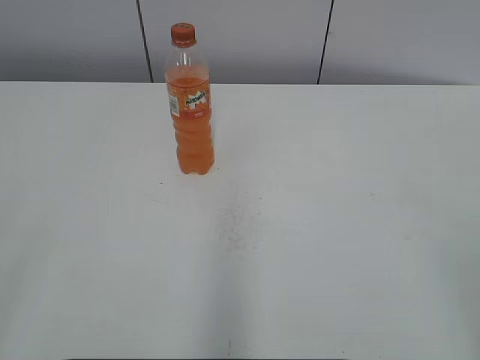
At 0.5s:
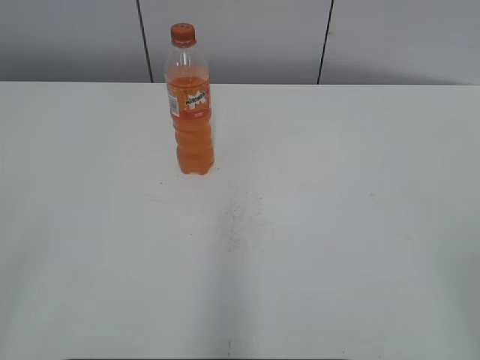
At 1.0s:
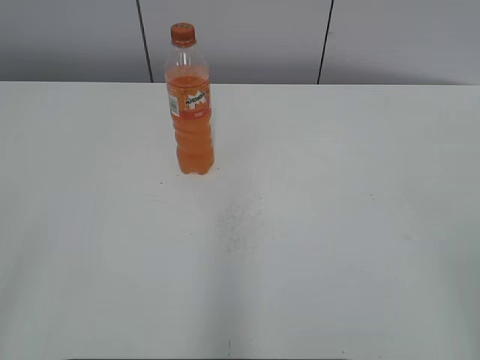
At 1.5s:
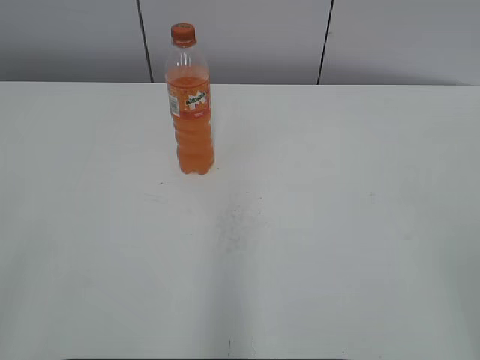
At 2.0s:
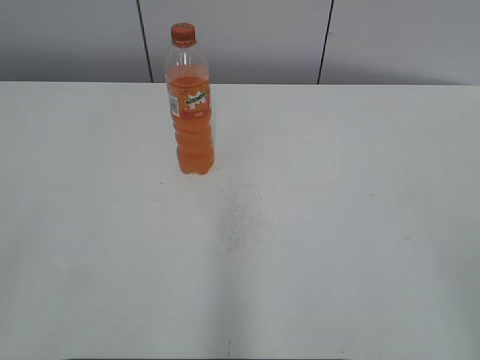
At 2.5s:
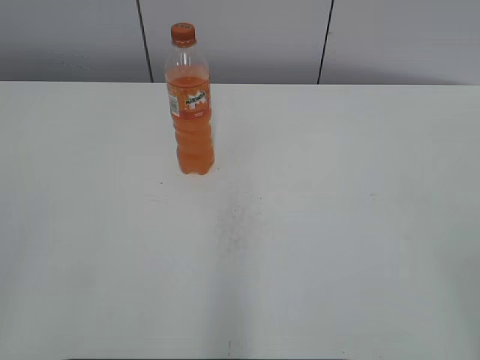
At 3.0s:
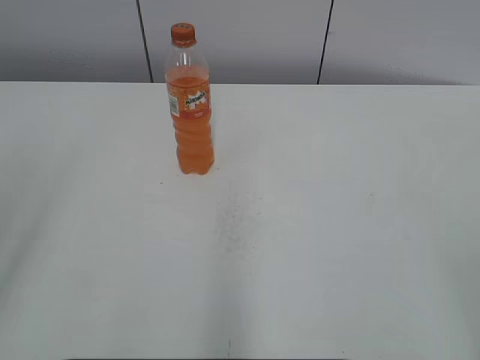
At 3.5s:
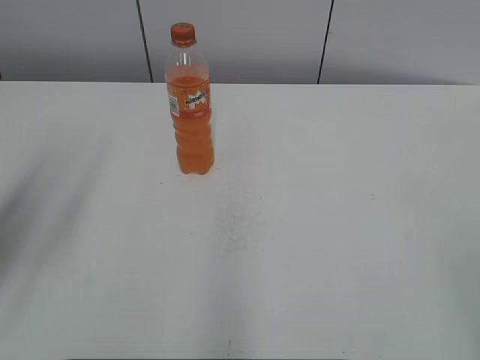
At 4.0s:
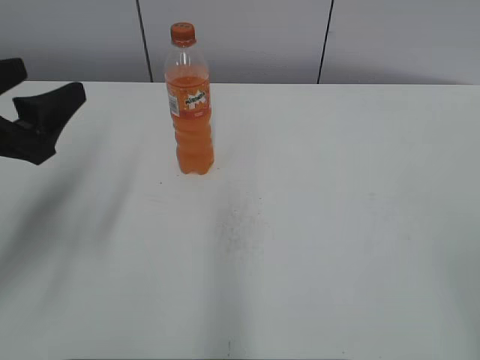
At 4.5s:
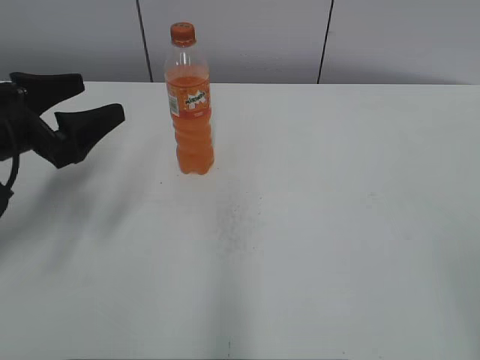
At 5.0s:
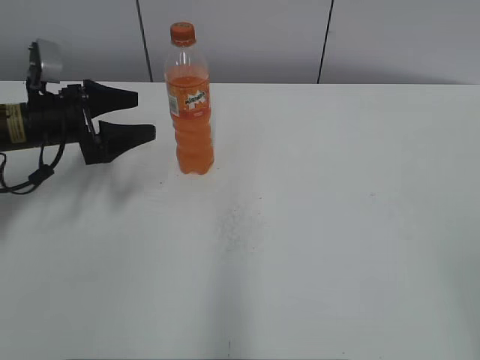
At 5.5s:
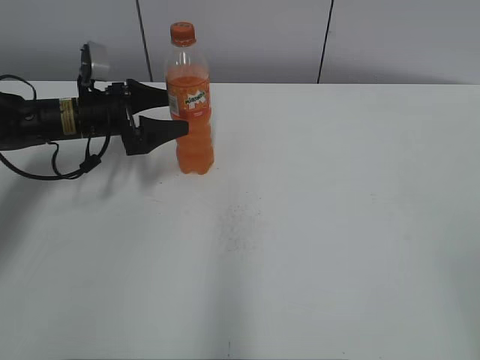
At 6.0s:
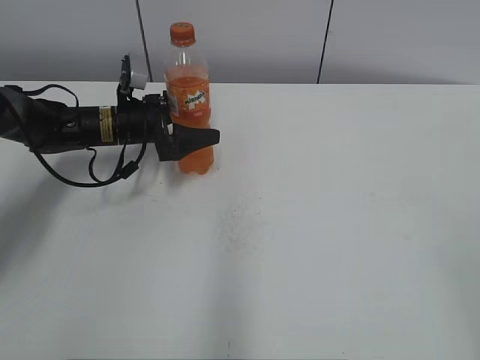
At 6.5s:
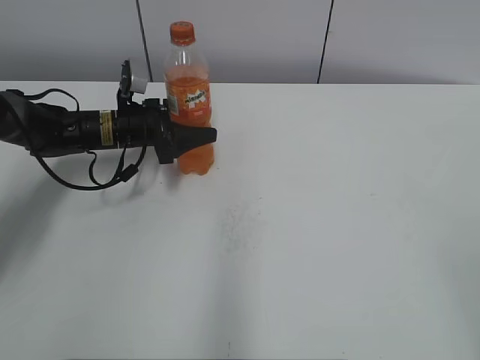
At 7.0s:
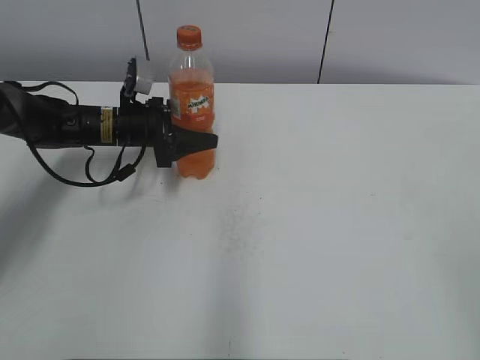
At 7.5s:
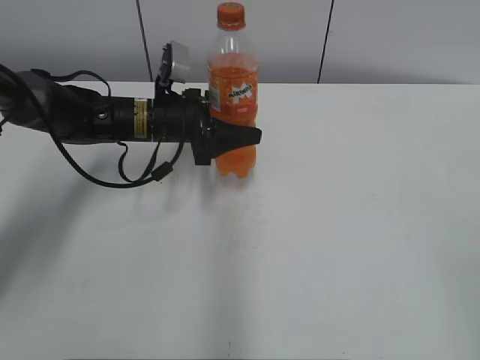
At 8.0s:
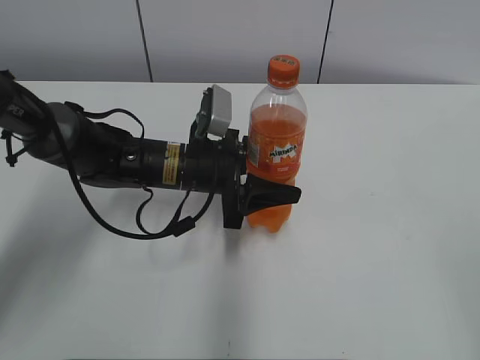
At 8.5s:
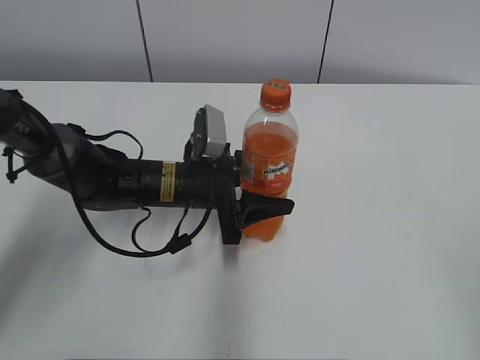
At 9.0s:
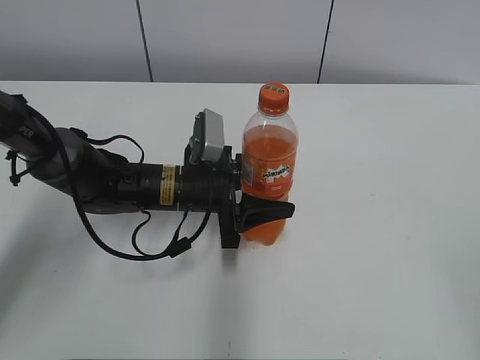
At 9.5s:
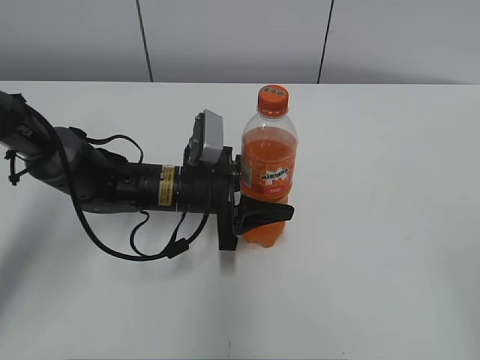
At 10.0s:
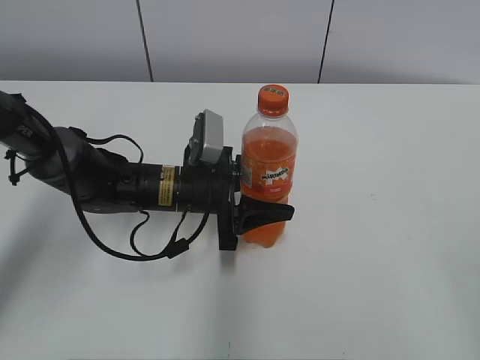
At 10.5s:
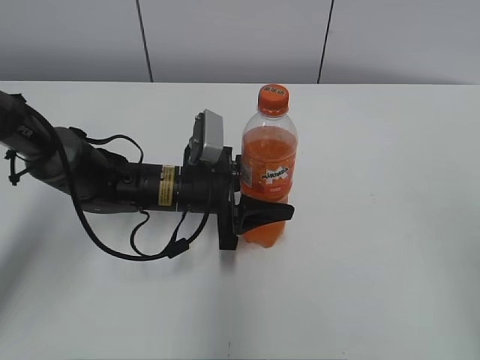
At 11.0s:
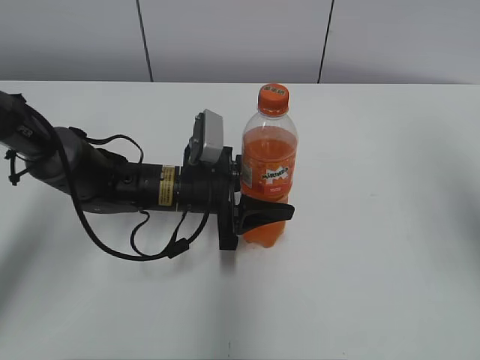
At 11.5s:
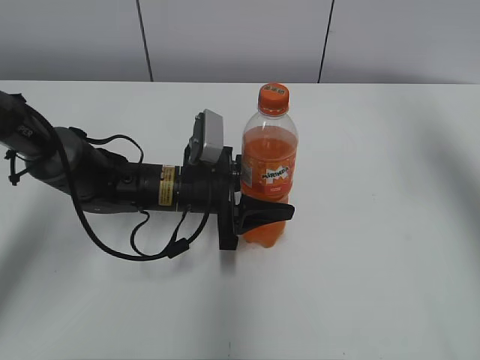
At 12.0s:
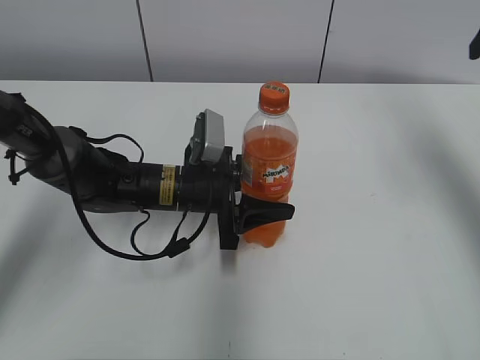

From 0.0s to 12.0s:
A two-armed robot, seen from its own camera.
Step, from 0.0s to 6.0s: Grab the Mirinda with the left hand.
Step, from 7.0s to 9.0s: Move the Mirinda from left to right.
From 2.0s to 4.0s: The left gripper moves forward, roughly 25 cm.
From 4.0s to 6.0s: The left gripper moves forward and downward, some 25 cm.
From 6.0s to 8.0s: The left gripper heads to the right and backward, covering approximately 15 cm, and closes its fingers.
From 8.0s to 10.0s: The grippers stay close to where they were, moving slightly.
From 10.0s to 12.0s: The right gripper travels forward by some 35 cm.

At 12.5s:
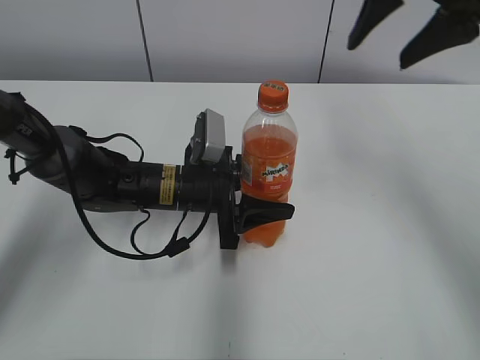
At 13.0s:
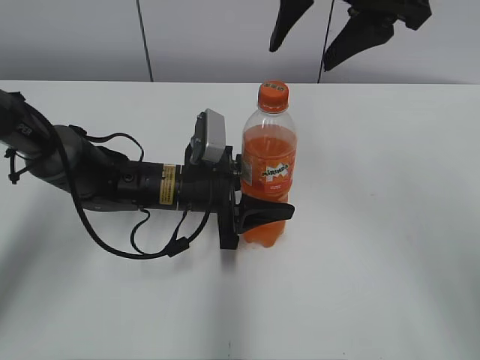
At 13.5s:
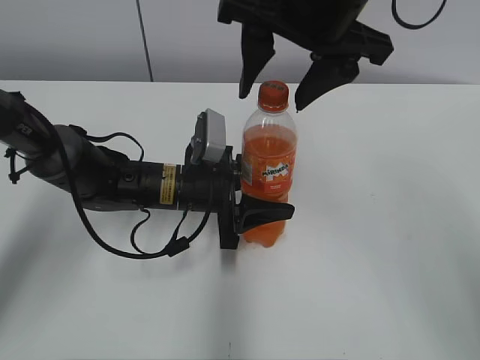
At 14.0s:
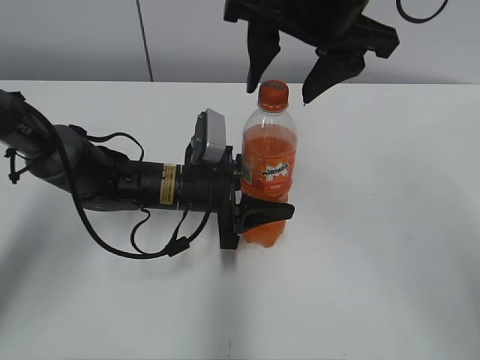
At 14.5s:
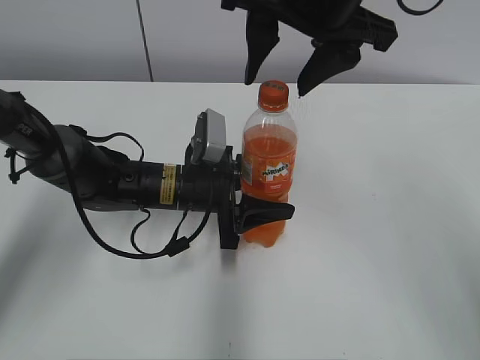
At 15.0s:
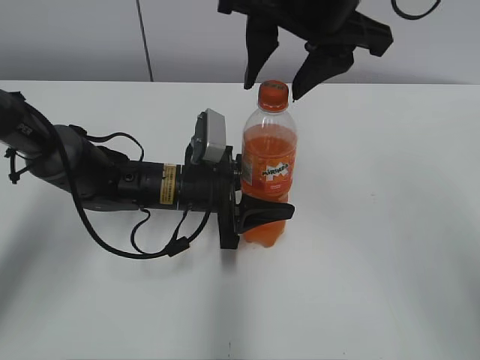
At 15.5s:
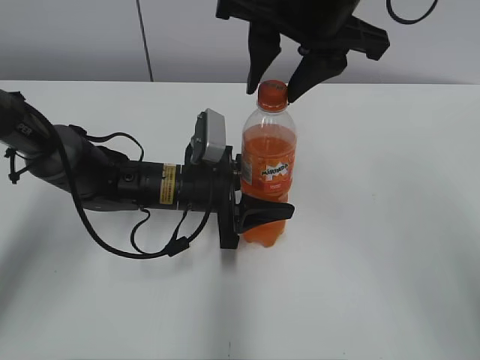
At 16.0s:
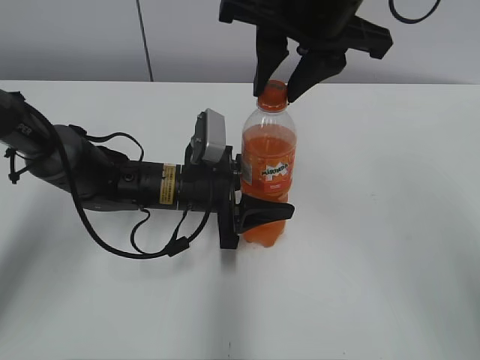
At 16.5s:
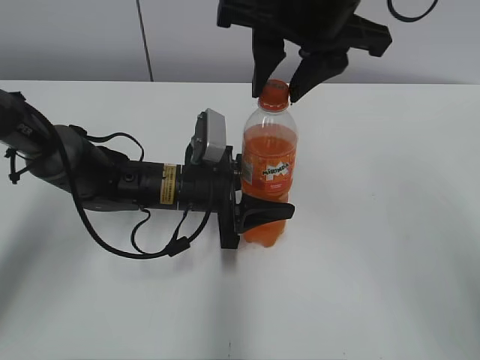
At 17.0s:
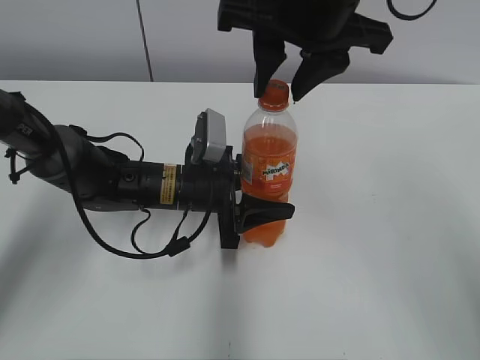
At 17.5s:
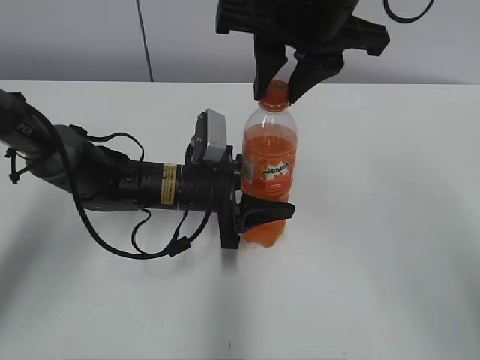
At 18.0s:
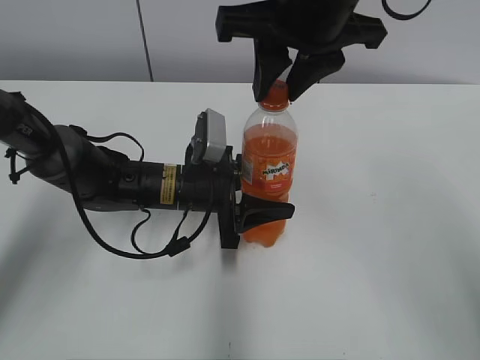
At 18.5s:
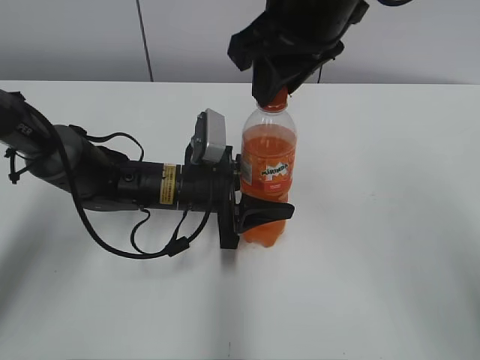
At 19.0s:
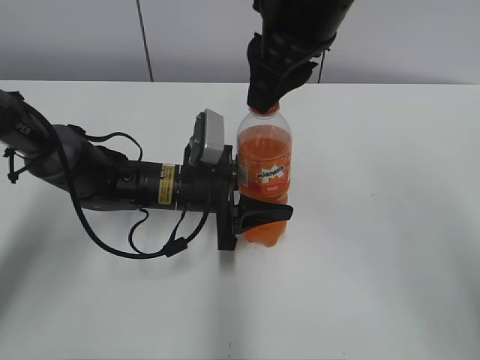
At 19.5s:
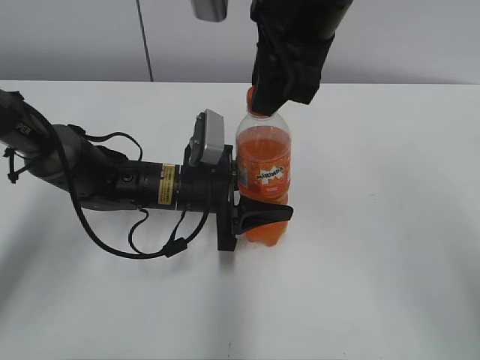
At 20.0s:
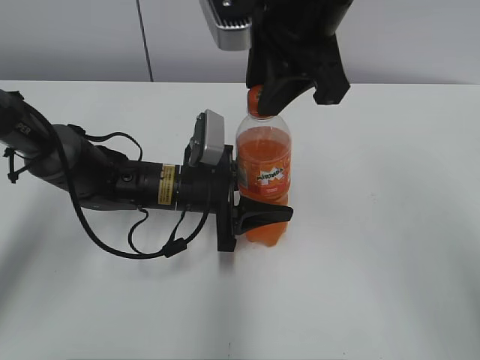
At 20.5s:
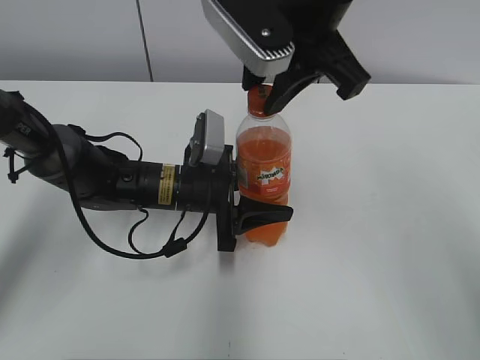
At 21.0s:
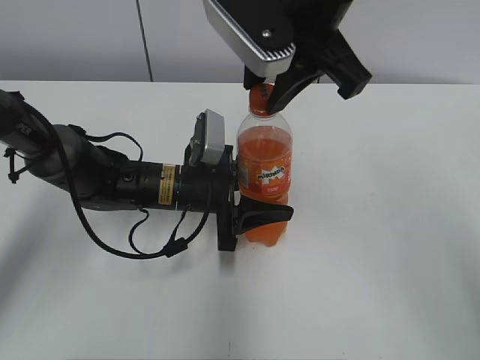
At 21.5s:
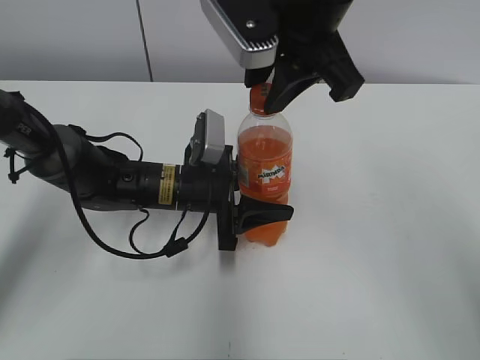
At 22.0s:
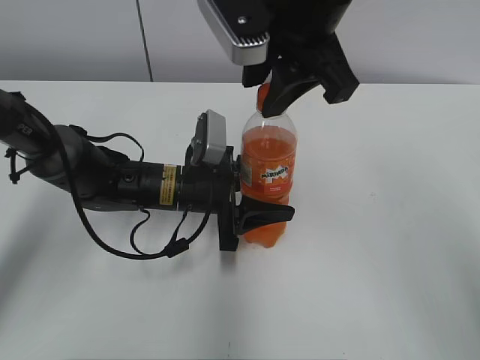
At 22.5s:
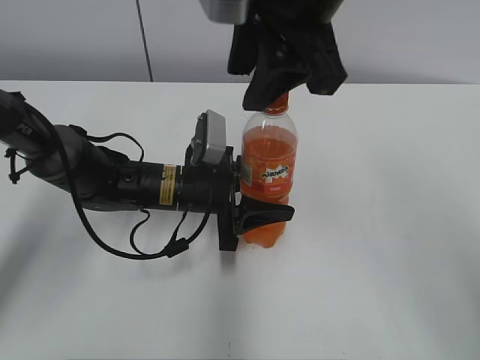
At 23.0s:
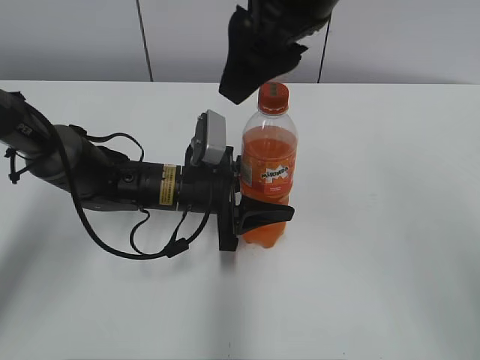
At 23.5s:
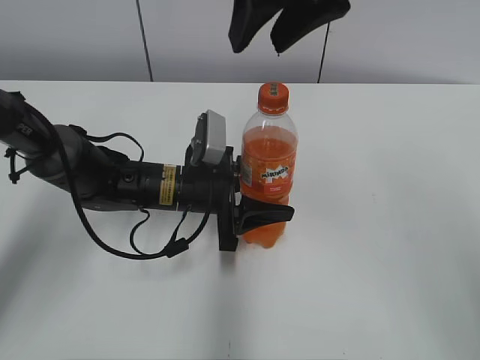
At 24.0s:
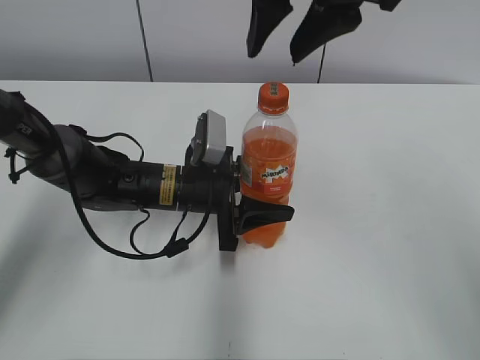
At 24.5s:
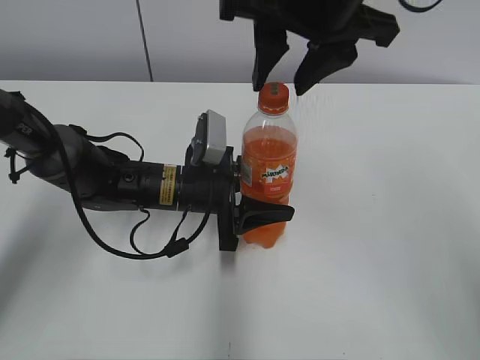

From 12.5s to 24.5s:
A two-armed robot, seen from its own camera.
From 12.5s to 14.5s: The right gripper is displaced to the left by some 10 cm.
From 14.5s to 16.5s: The right gripper closes its fingers.
From 20.5s to 22.5s: The right gripper opens.

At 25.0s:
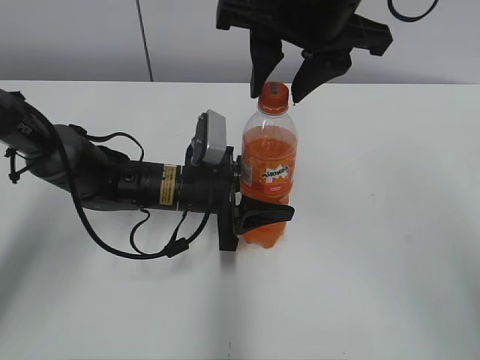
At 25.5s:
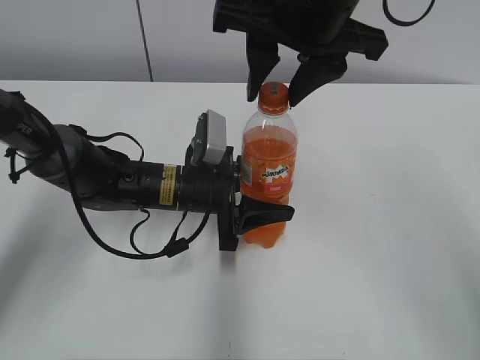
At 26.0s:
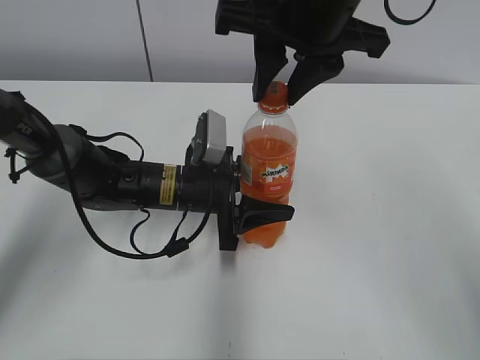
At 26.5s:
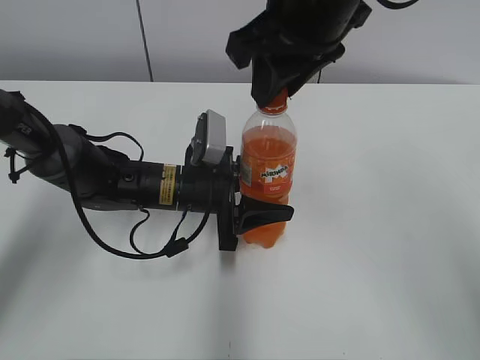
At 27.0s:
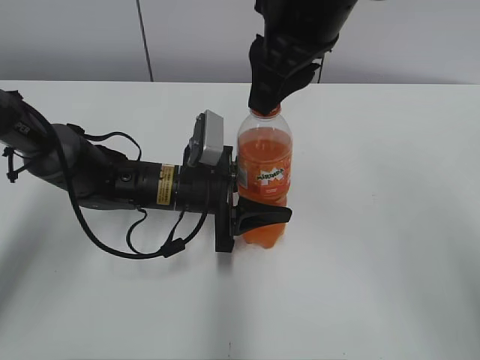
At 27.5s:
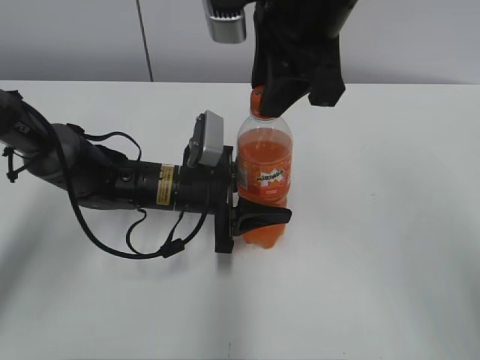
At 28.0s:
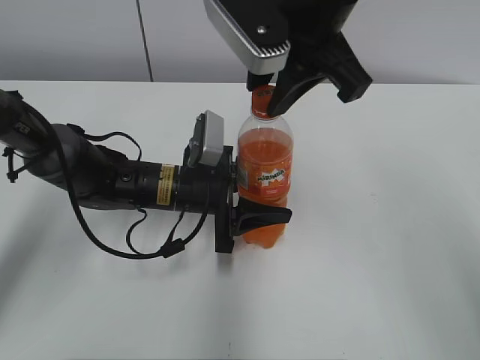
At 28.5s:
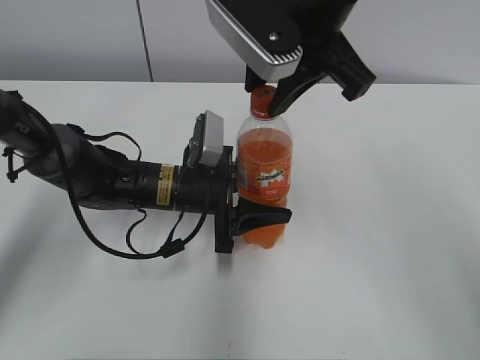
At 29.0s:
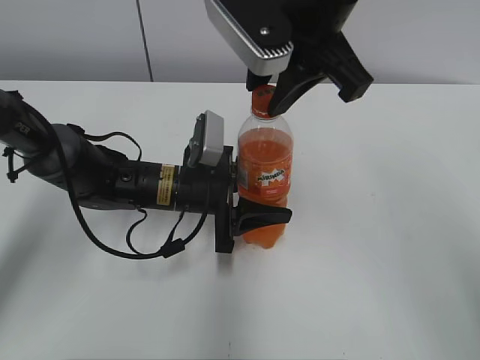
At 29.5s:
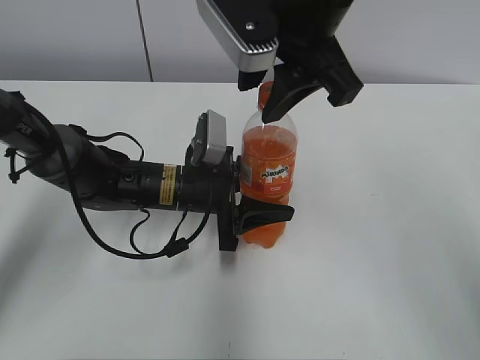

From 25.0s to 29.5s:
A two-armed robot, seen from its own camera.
From 25.0s to 27.0s: The right gripper closes.
From 27.0s to 29.5s: The right gripper opens.
